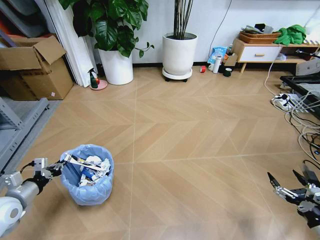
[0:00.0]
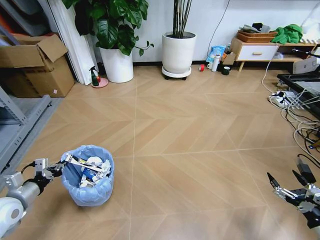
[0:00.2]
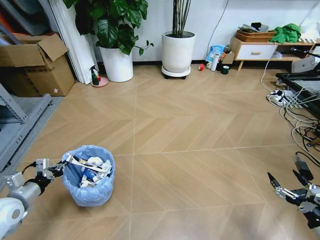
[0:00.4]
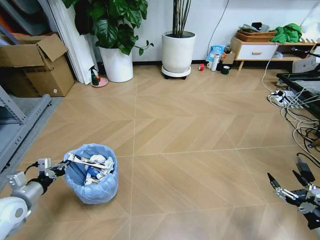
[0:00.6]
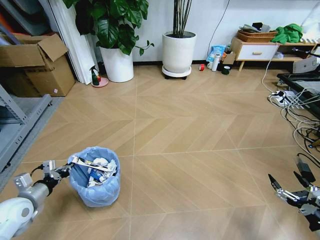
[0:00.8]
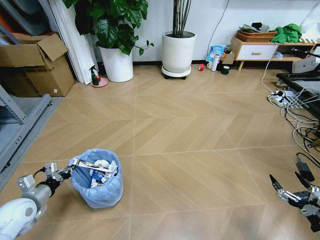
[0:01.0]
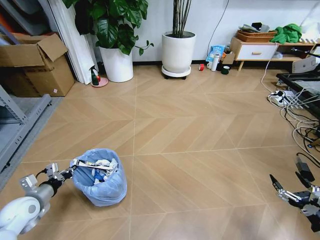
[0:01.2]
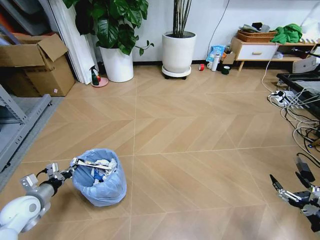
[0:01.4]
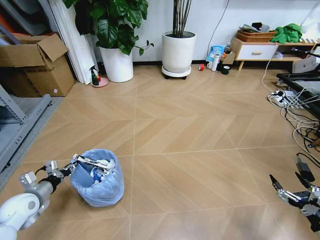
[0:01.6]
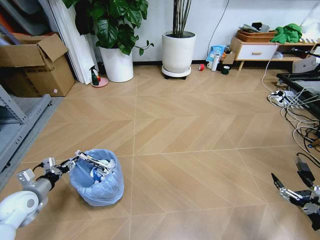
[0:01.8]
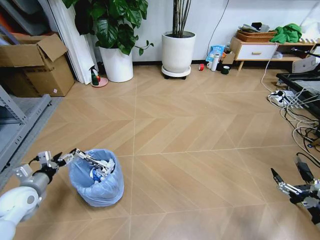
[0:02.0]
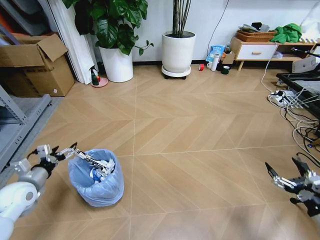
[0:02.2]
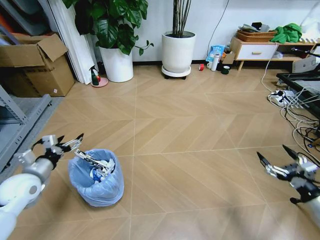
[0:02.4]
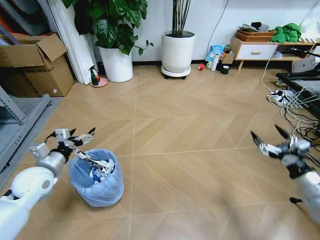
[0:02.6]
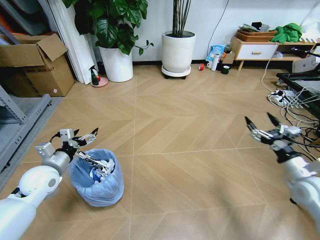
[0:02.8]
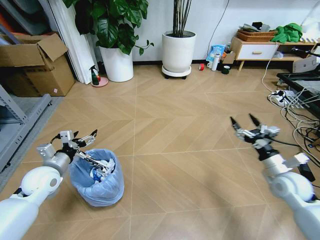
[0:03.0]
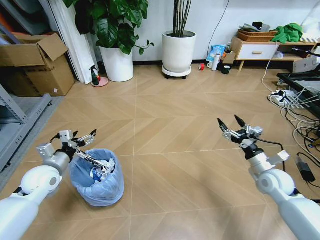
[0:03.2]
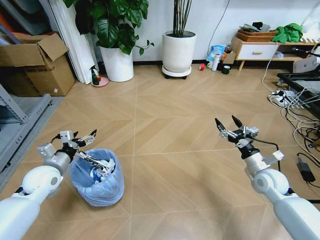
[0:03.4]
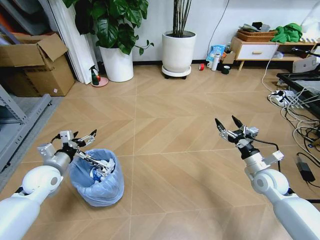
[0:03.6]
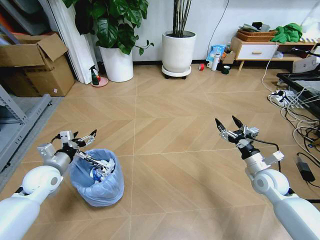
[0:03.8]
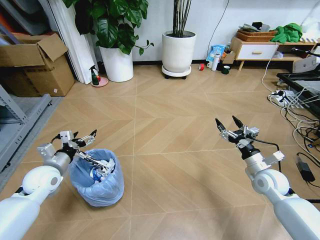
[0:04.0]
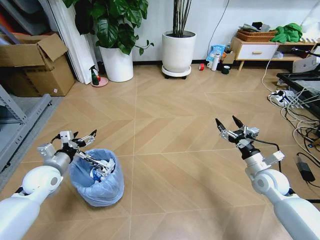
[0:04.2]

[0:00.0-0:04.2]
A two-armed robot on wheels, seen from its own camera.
Task of the whole recording: Pick up the trash bin and place the garbage on the floor into it.
0.0 to 1.4 s: The left gripper shifts some 5 cm downward.
1.4 to 2.8 s: The left gripper shifts some 15 cm upward, to the right and forward, and opens, while the right gripper is displaced forward and upward by approximately 20 cm.
2.8 to 4.2 s: The right gripper travels to the left, downward and forward by approximately 10 cm.

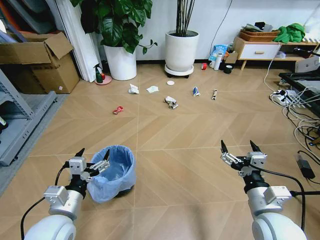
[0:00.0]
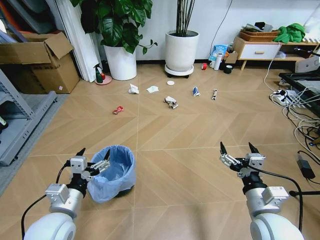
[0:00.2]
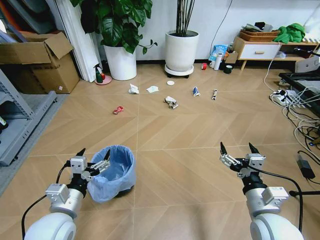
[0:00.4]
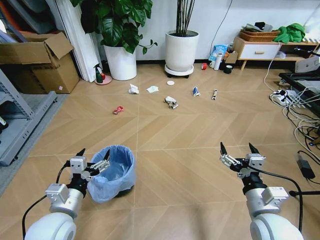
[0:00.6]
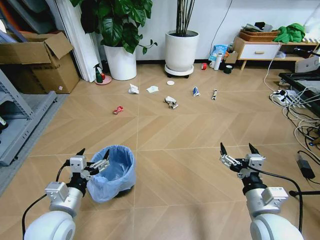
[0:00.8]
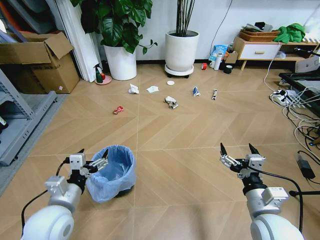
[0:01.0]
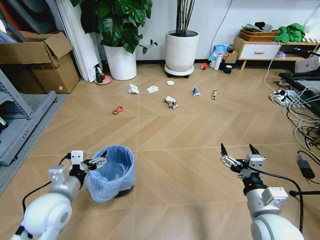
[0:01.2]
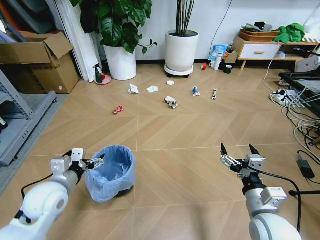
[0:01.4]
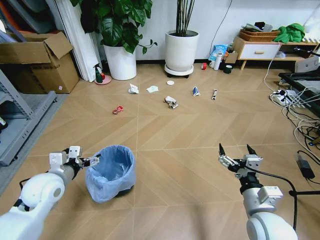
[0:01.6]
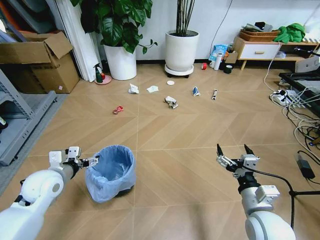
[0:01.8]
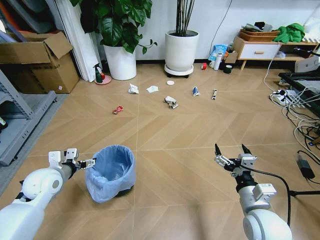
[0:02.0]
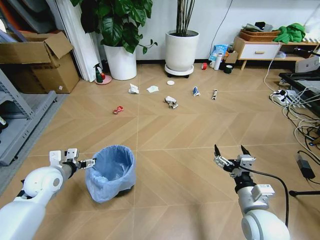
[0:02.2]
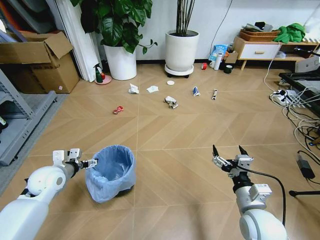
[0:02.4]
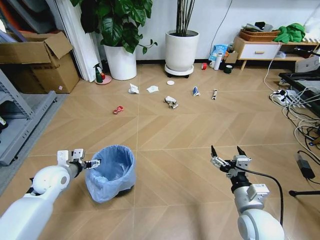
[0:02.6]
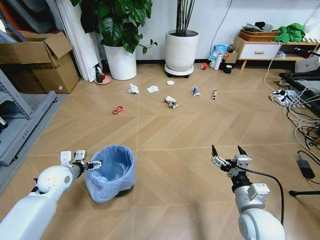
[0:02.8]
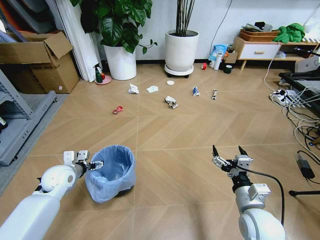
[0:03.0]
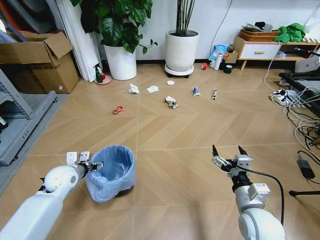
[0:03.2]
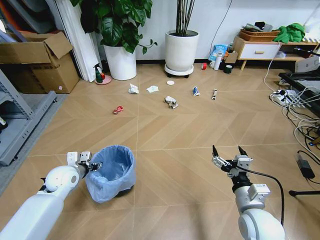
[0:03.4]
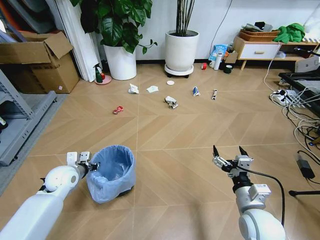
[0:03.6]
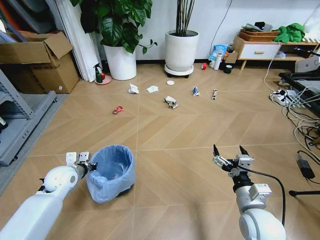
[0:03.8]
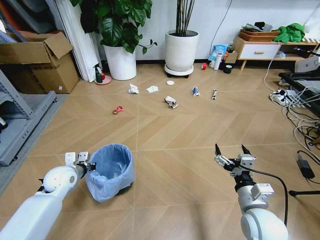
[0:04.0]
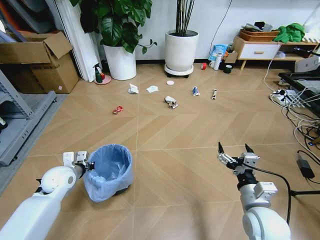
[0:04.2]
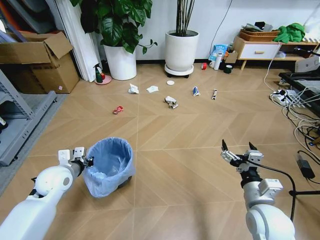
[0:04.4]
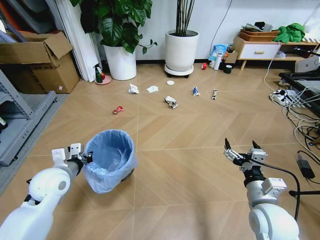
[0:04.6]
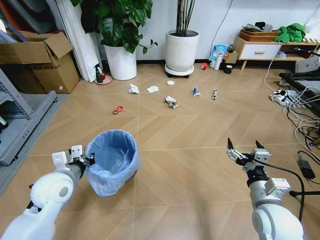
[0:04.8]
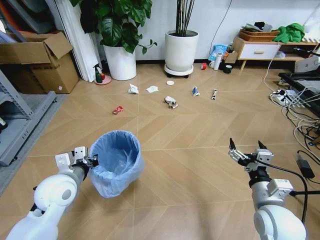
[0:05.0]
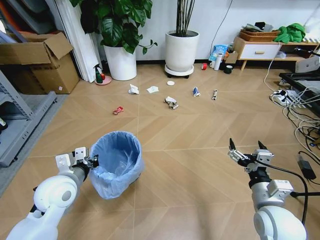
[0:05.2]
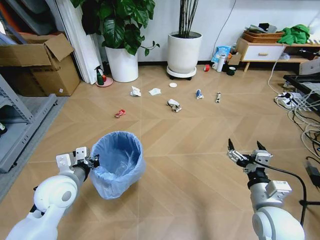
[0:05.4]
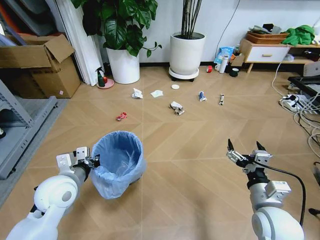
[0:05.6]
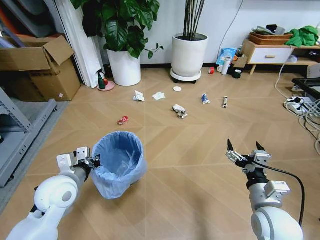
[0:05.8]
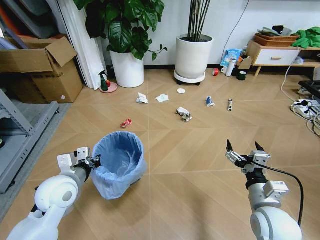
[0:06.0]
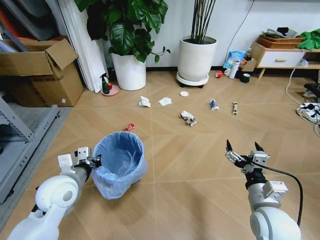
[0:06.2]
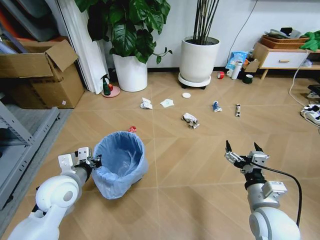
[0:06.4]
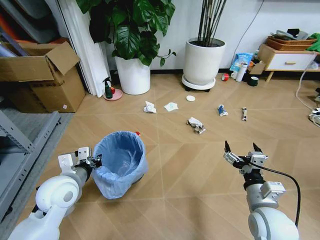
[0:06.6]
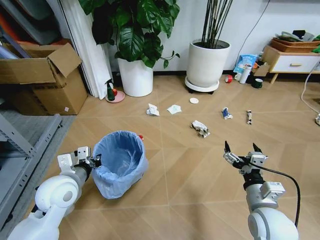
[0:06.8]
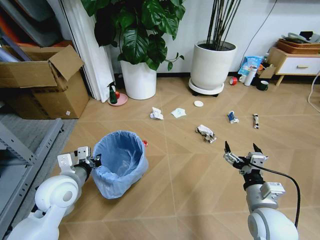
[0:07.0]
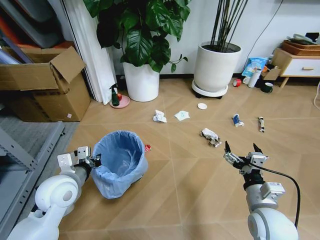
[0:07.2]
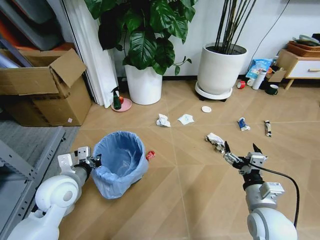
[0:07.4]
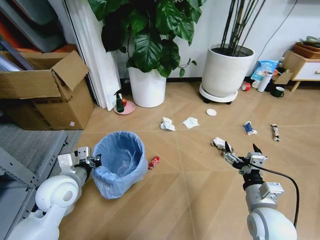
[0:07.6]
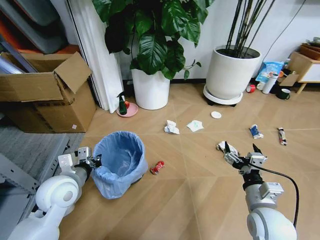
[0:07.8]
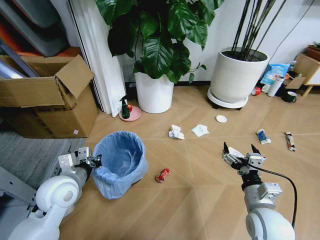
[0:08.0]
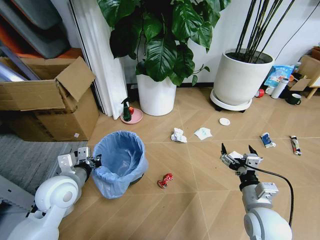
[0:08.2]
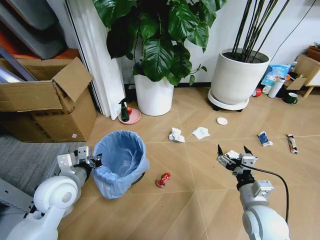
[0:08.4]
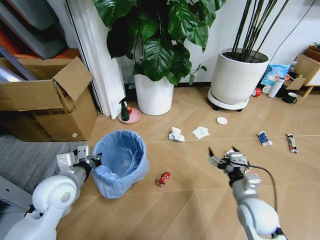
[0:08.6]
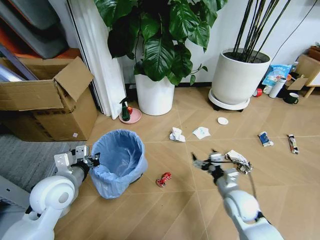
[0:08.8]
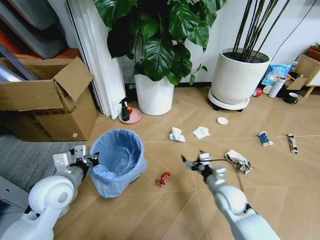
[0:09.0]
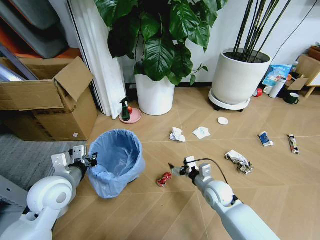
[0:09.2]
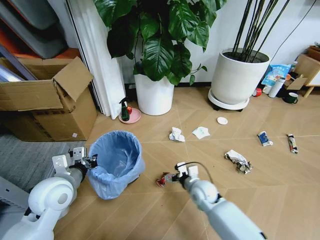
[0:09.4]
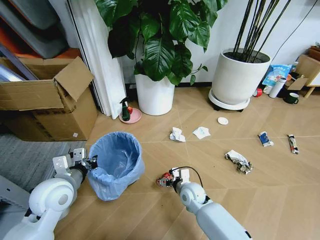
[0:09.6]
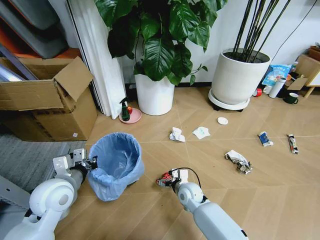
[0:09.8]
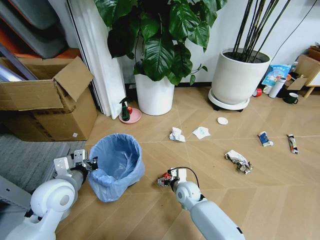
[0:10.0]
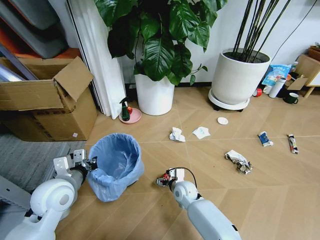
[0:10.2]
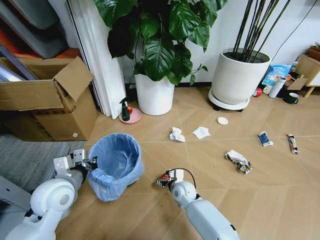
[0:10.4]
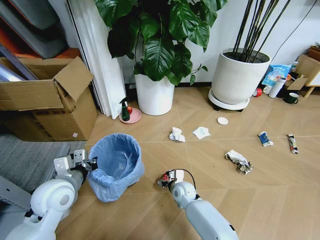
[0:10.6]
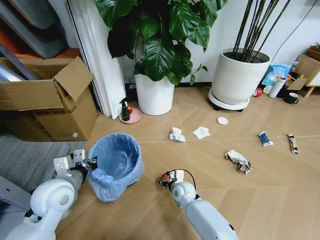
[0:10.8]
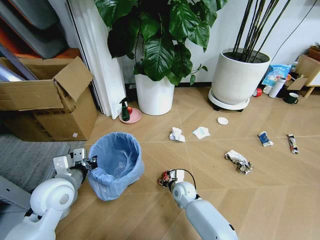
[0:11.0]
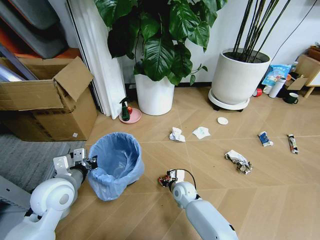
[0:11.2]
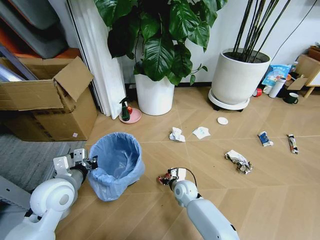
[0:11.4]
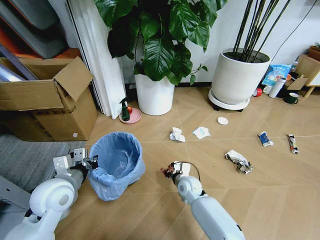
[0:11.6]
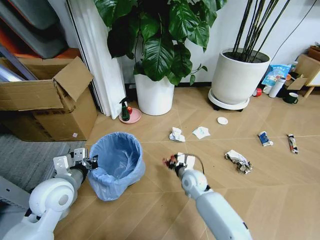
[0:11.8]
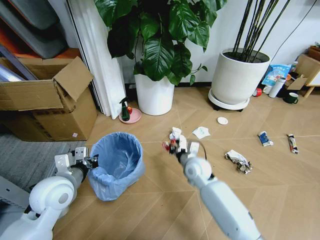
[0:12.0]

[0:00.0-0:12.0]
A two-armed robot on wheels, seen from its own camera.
Task of the whole recording: Pick up the trash bin and place the garbage on the floor into it.
1.6 to 3.0 s: The left gripper is displaced forward and downward by about 10 cm.
3.0 to 4.4 s: The left gripper closes its fingers.
4.4 to 6.0 s: The left gripper goes roughly 10 cm to the right and backward.
7.6 to 9.0 s: The right gripper is displaced forward and downward by roughly 15 cm.
9.0 to 10.4 s: The right gripper is displaced to the left, downward and forward by roughly 20 cm.
10.4 to 12.0 s: The right gripper shifts about 15 cm upward, and closes up.

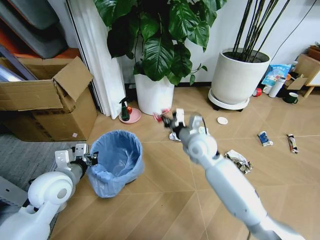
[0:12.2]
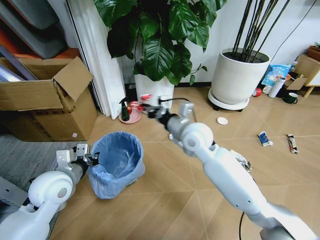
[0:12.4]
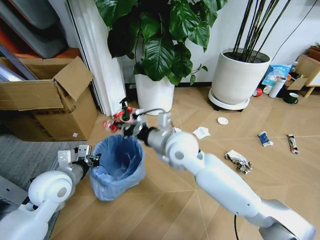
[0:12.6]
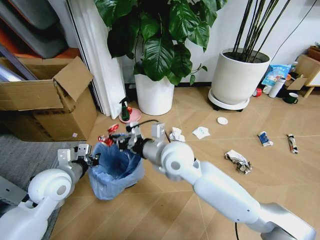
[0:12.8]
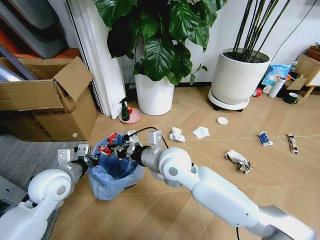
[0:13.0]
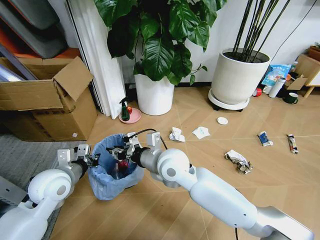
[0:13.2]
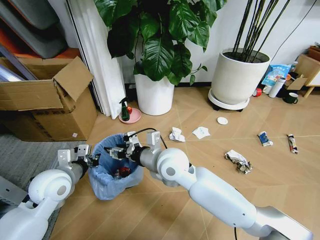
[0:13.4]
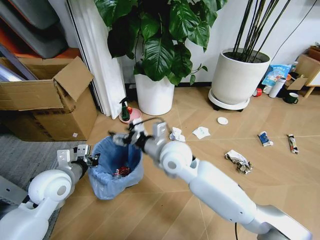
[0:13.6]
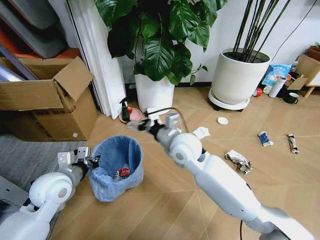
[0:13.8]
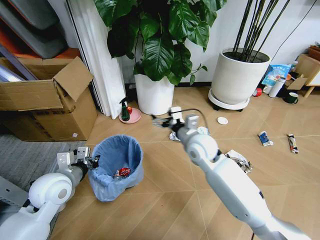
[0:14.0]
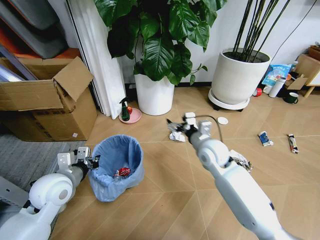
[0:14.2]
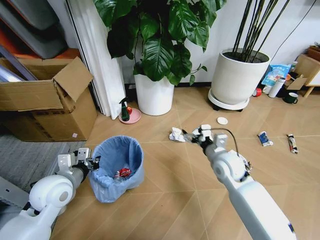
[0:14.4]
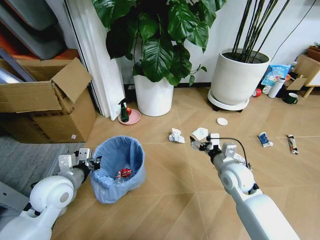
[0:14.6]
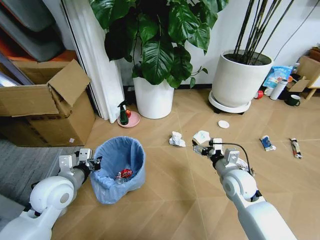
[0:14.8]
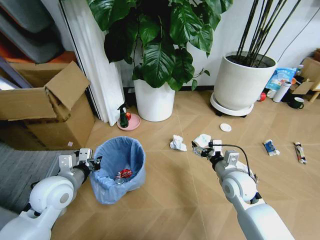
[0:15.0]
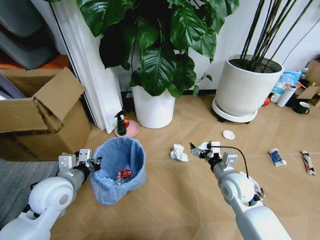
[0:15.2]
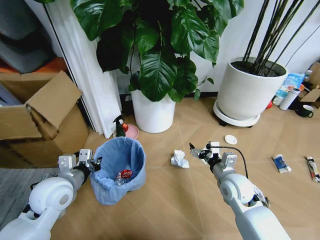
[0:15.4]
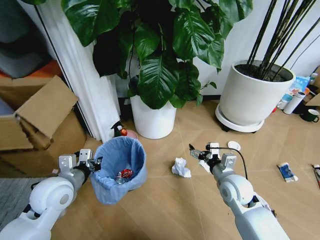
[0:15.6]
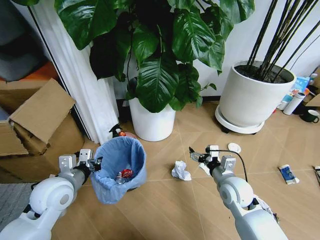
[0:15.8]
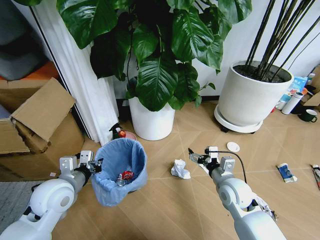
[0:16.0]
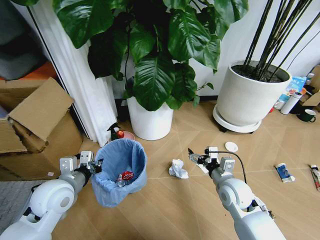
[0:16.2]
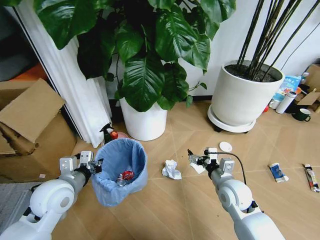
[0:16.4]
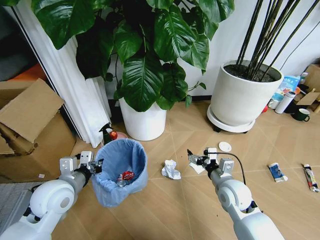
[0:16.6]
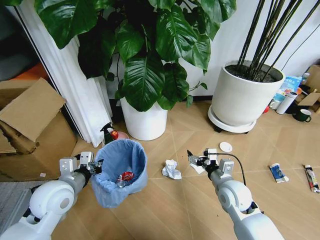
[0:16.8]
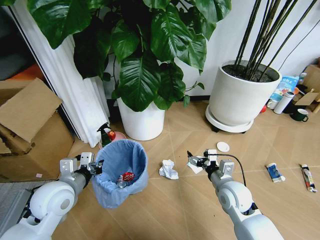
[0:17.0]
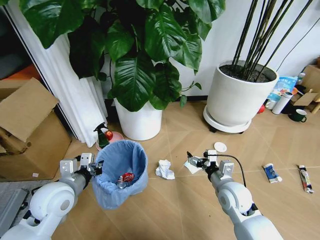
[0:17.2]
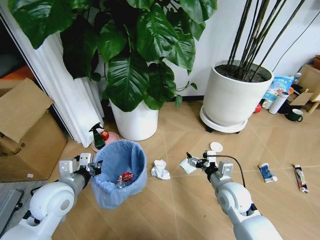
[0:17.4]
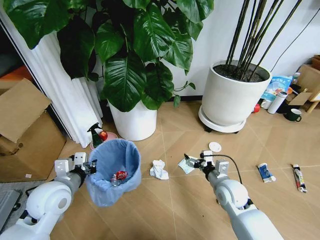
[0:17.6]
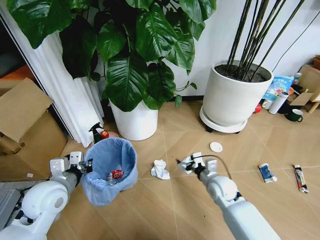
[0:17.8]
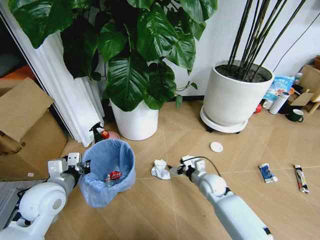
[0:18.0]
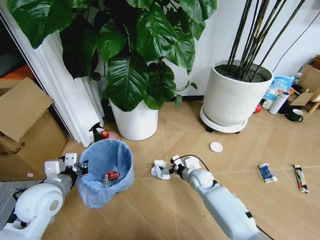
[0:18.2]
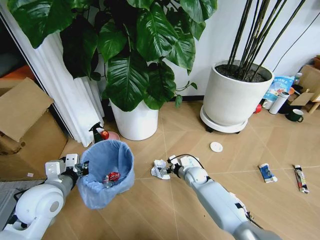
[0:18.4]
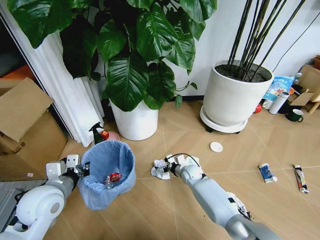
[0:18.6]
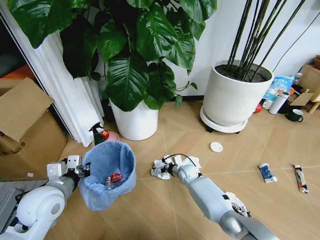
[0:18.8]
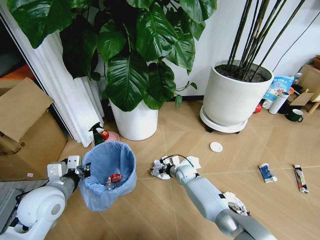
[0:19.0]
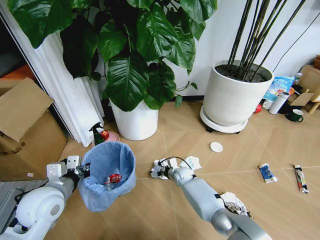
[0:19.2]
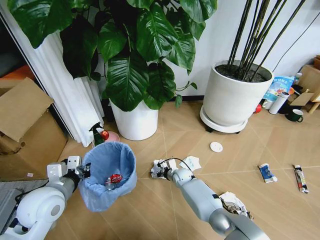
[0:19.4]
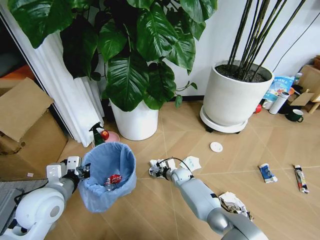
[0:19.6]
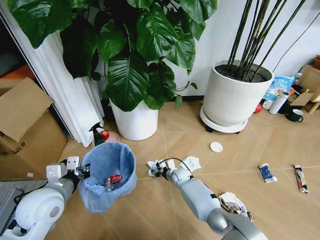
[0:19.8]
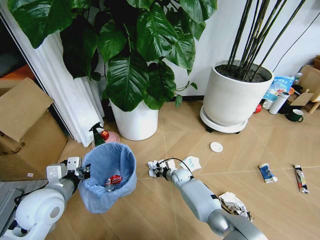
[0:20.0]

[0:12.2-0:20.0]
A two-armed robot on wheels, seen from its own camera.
Task of the whole recording: Pick up the trash bin and place the garbage on the floor into it.
12.2 to 13.8 s: The right gripper shifts approximately 5 cm to the left, and opens up.
13.8 to 15.4 s: The right gripper moves to the right, downward and backward, approximately 20 cm.
16.8 to 18.4 s: The right gripper moves downward, forward and to the left, approximately 20 cm.
18.4 to 20.0 s: The right gripper shifts approximately 10 cm to the left and downward, and closes up.
